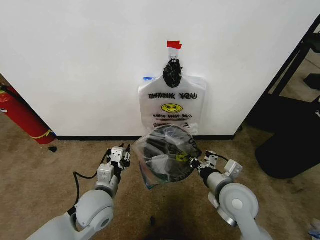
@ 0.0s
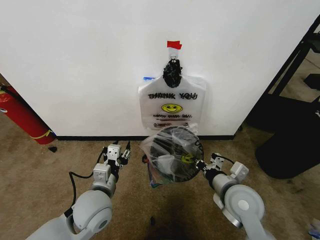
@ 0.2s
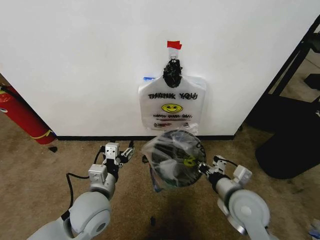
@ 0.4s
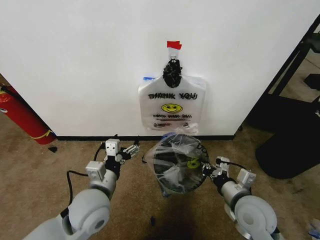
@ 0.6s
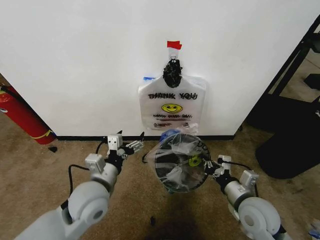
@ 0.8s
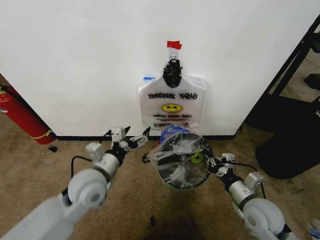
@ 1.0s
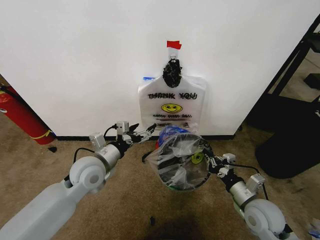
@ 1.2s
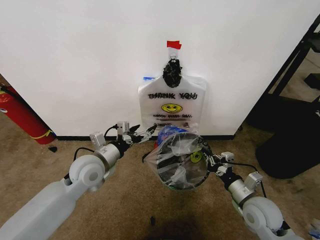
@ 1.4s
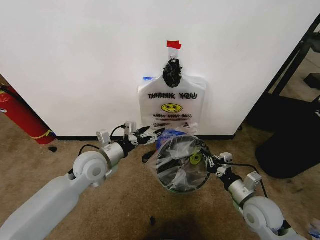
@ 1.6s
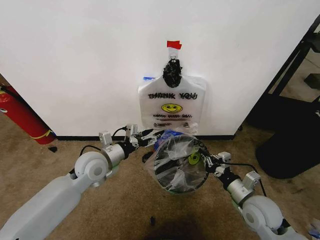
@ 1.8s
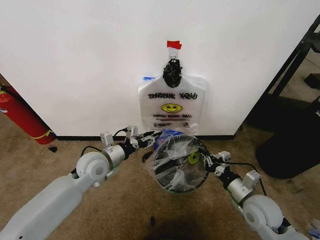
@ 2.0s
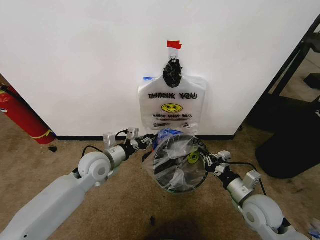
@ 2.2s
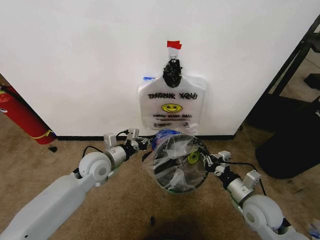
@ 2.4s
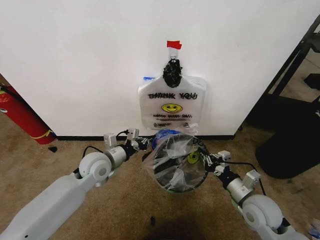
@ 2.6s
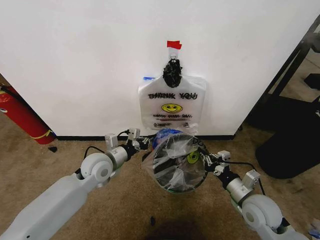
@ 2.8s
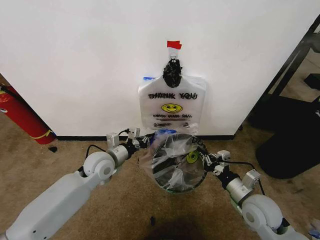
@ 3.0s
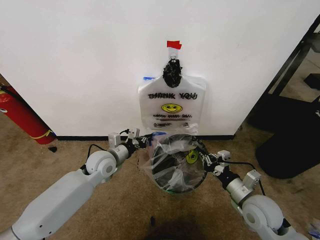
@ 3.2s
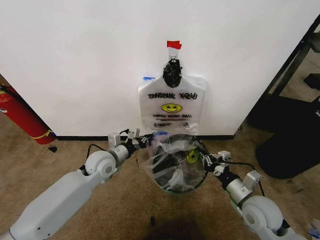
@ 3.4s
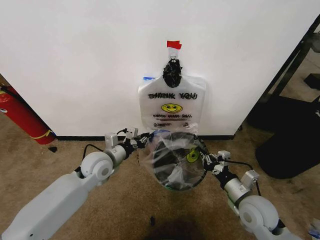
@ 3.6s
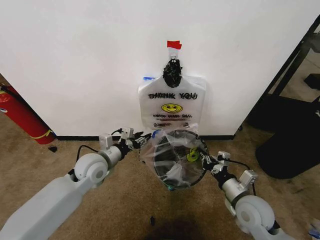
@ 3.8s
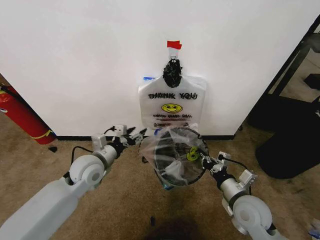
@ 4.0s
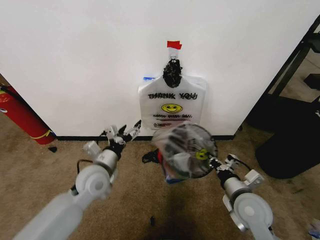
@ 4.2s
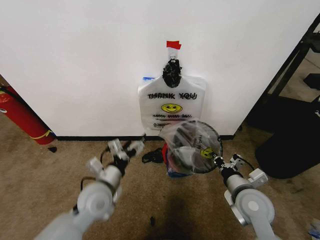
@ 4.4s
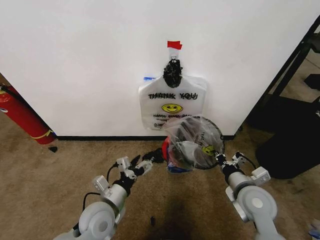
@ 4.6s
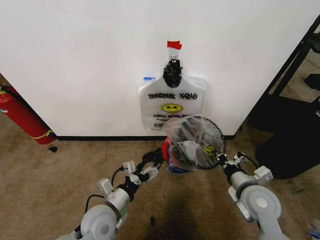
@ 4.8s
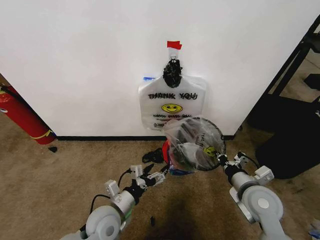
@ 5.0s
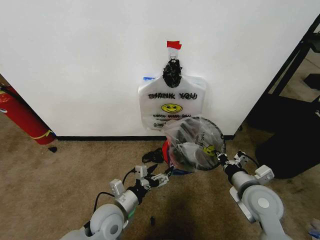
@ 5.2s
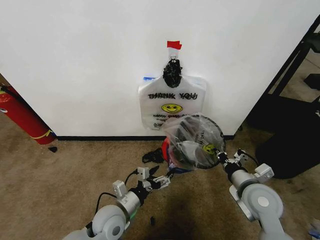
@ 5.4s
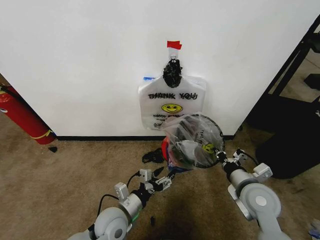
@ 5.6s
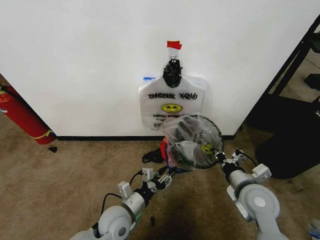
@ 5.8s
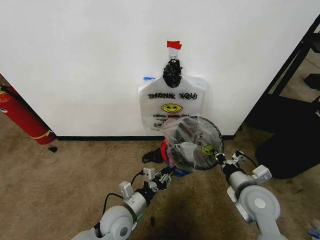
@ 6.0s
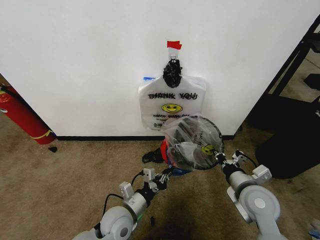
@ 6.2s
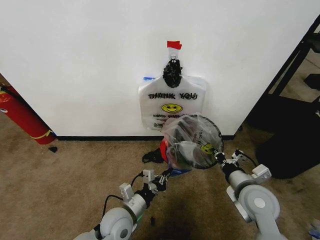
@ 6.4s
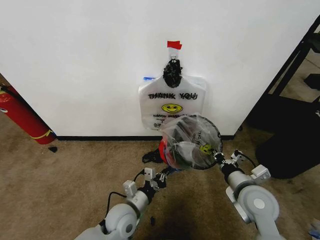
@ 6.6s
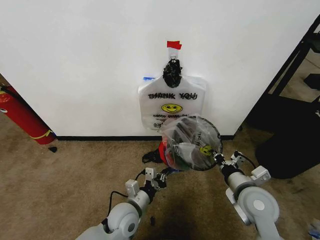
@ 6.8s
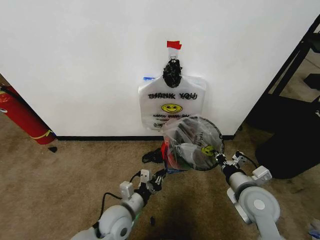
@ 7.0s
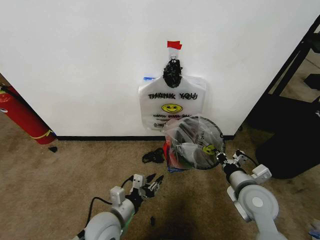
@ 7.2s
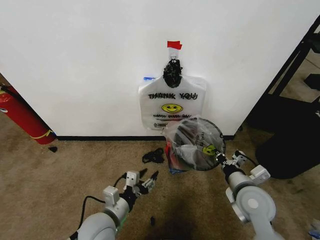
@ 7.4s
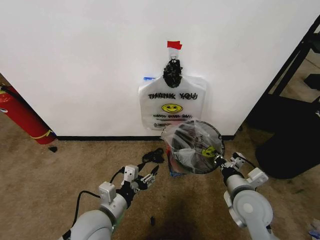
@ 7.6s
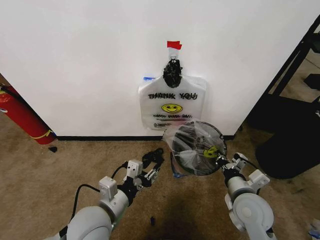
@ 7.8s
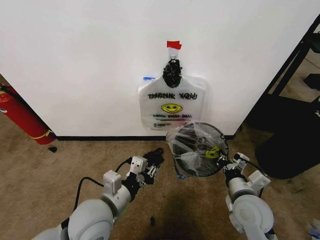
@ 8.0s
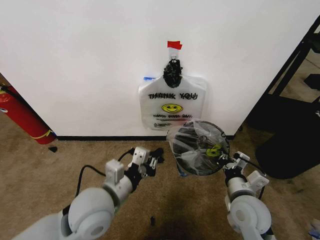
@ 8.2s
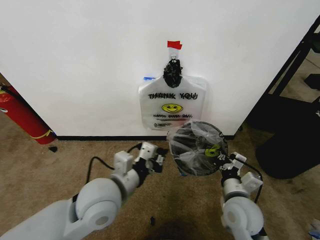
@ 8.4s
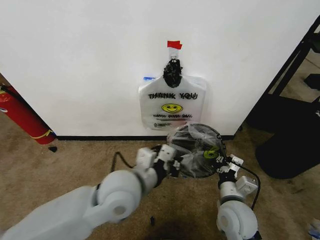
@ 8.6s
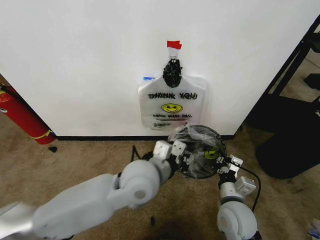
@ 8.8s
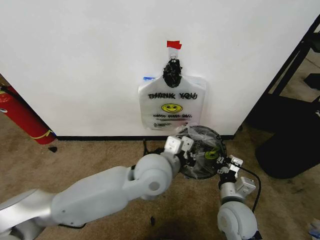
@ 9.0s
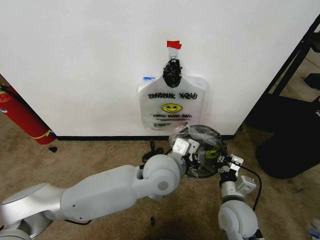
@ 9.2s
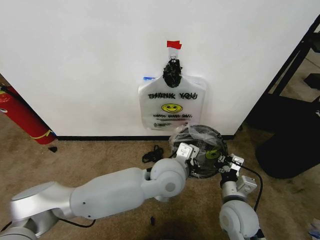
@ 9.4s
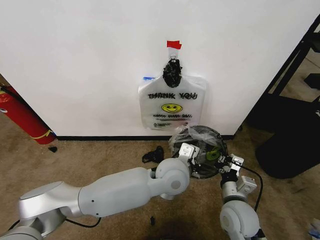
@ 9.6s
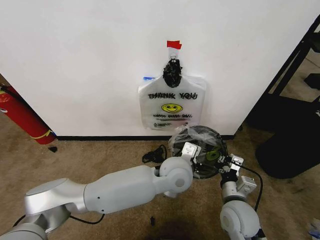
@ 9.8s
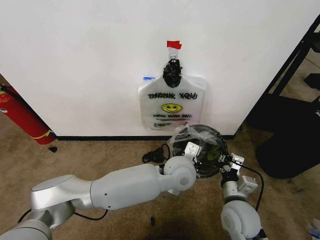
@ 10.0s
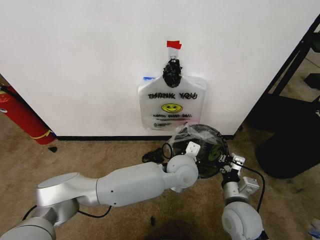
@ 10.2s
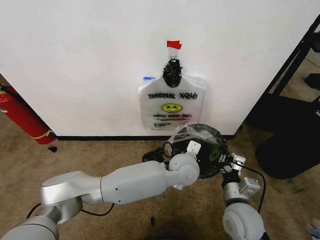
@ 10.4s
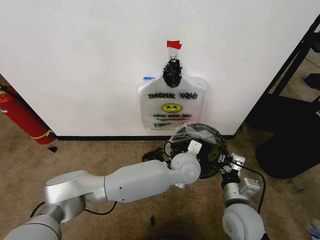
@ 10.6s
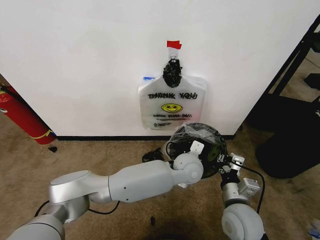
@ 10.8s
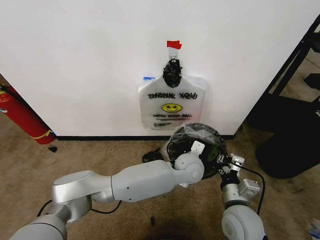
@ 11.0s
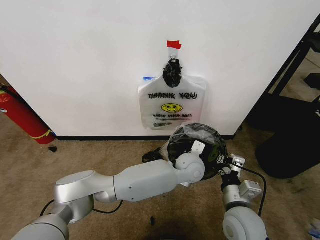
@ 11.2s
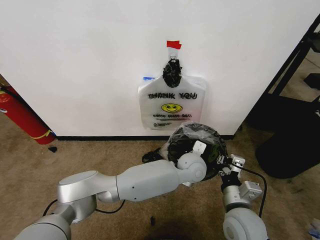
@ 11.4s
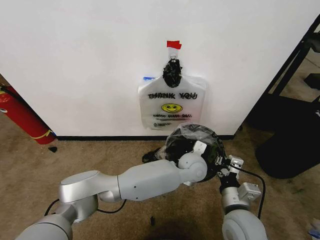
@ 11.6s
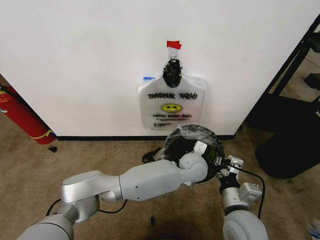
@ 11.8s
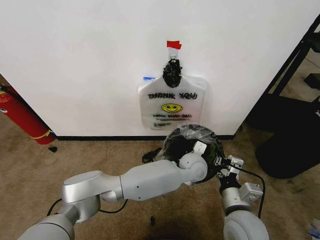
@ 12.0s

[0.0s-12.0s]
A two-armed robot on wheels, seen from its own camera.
Task of the whole recording: Pick up the garbage bag from the wall and place it over the trash bin.
0.0s to 1.6s: The left gripper moves forward, approximately 10 cm, and opens up. The right gripper heads to the right and downward, covering some 10 cm.
1.6s to 3.0s: The left gripper closes its fingers.
3.0s to 4.4s: The left gripper heads backward, covering roughly 10 cm, and opens its fingers.
4.4s to 6.0s: The left gripper heads downward and to the right, covering about 10 cm, and closes up.
6.0s to 7.6s: The left gripper travels upward by roughly 5 cm.
7.6s to 9.0s: The left gripper moves to the right, upward and forward, roughly 20 cm, and closes up; the right gripper changes place by roughly 5 cm.
9.0s to 10.4s: The left gripper heads to the right, downward and forward, covering roughly 15 cm.
10.4s to 12.0s: The left gripper moves roughly 5 cm.

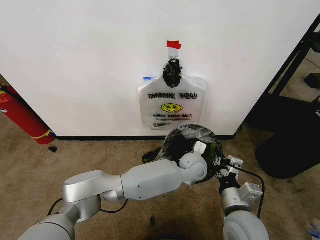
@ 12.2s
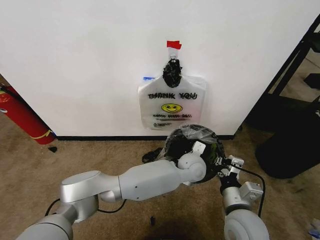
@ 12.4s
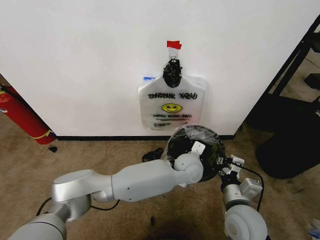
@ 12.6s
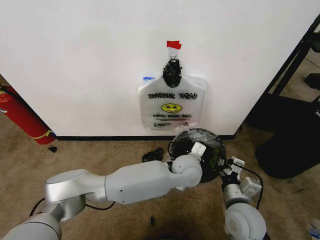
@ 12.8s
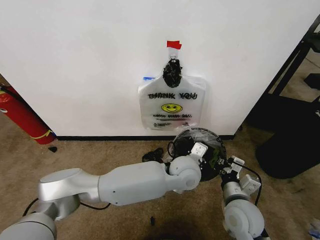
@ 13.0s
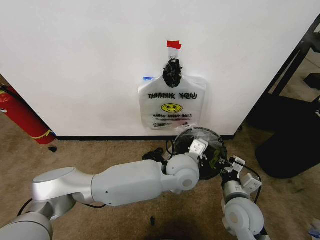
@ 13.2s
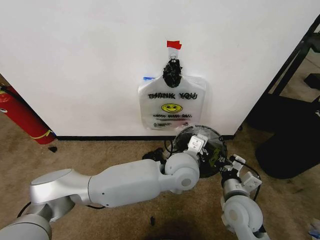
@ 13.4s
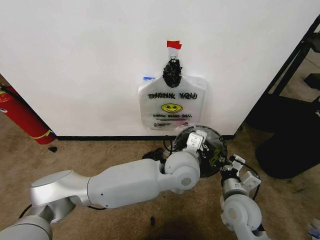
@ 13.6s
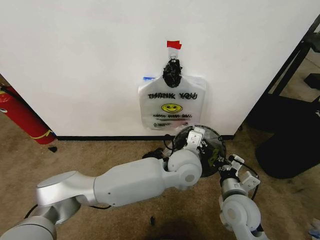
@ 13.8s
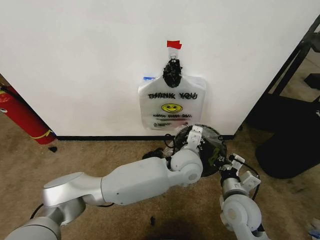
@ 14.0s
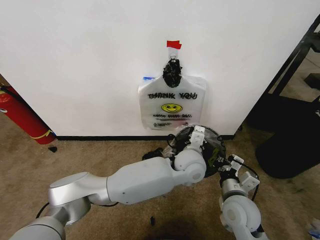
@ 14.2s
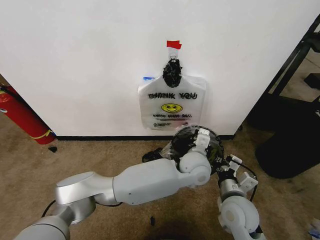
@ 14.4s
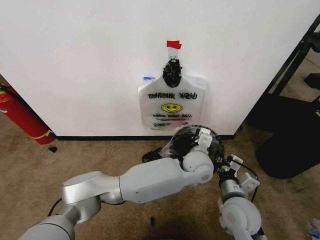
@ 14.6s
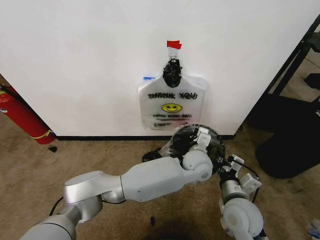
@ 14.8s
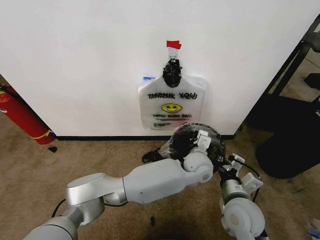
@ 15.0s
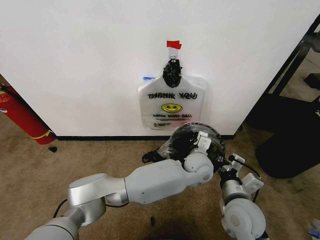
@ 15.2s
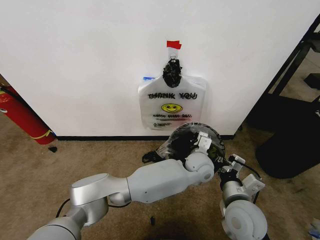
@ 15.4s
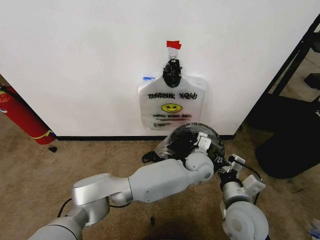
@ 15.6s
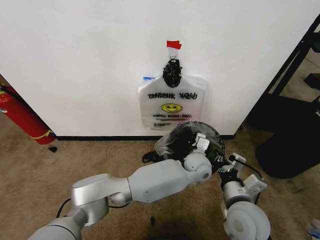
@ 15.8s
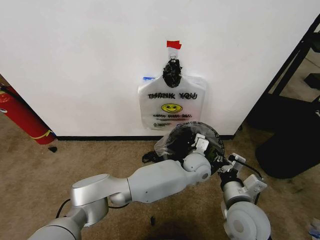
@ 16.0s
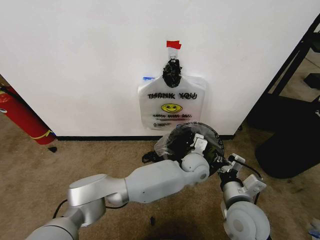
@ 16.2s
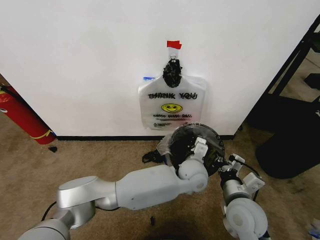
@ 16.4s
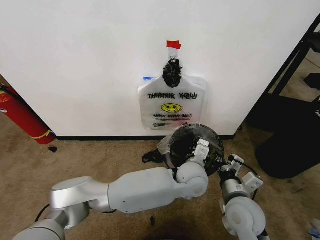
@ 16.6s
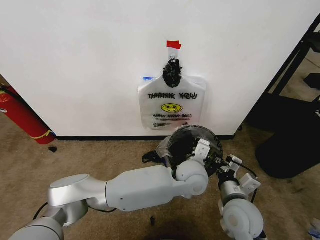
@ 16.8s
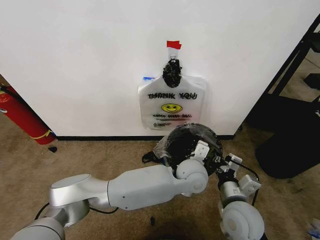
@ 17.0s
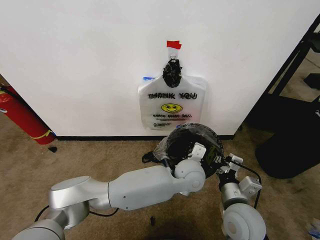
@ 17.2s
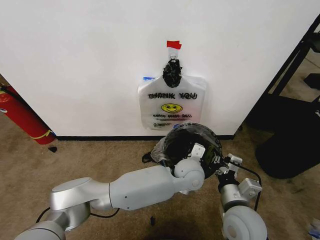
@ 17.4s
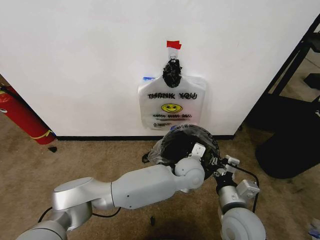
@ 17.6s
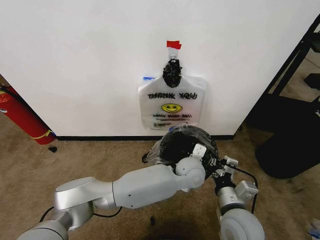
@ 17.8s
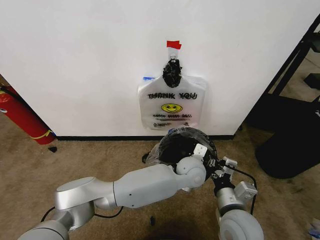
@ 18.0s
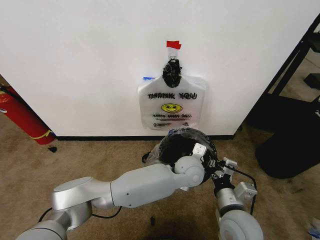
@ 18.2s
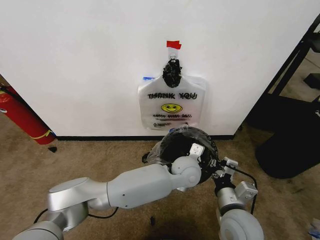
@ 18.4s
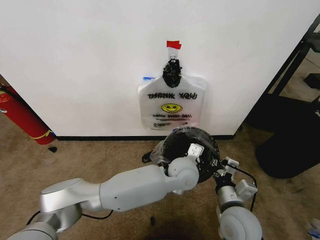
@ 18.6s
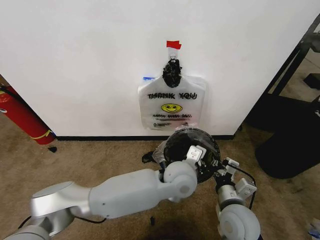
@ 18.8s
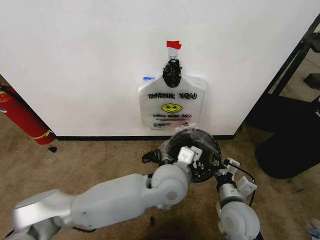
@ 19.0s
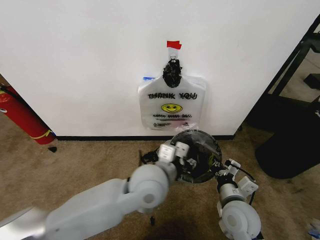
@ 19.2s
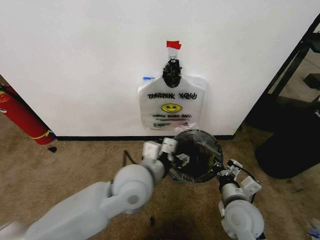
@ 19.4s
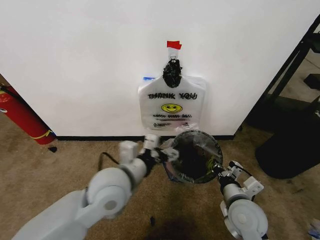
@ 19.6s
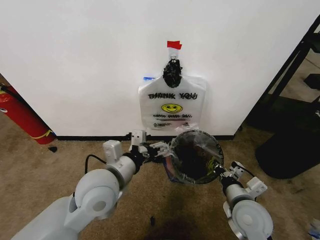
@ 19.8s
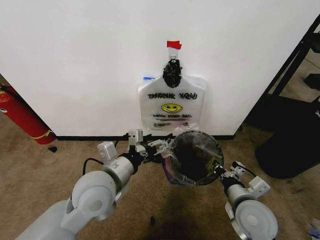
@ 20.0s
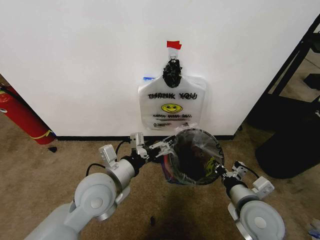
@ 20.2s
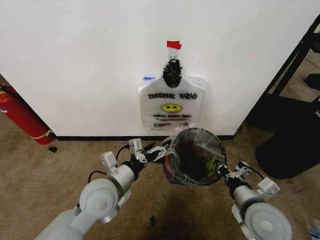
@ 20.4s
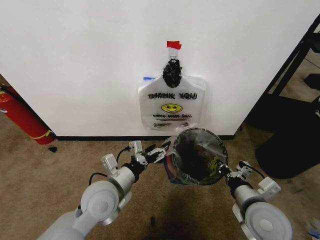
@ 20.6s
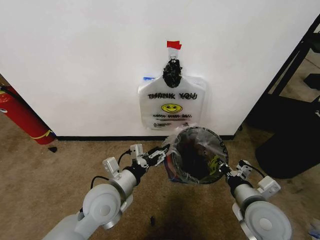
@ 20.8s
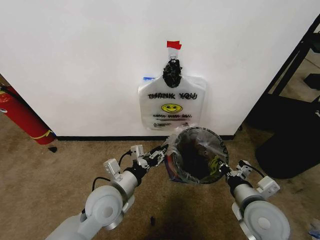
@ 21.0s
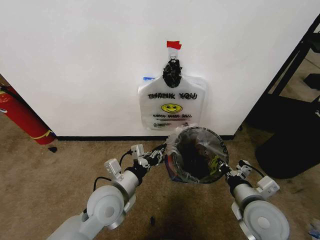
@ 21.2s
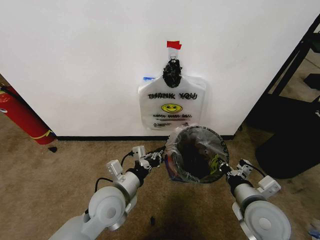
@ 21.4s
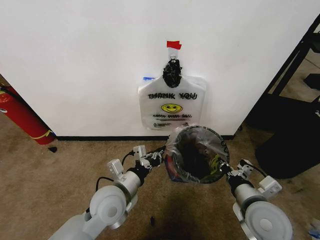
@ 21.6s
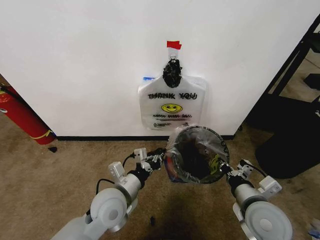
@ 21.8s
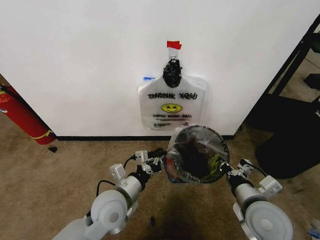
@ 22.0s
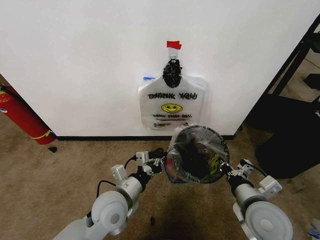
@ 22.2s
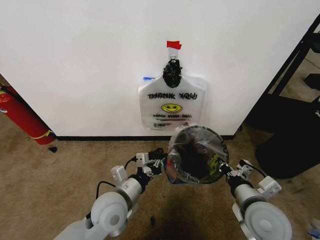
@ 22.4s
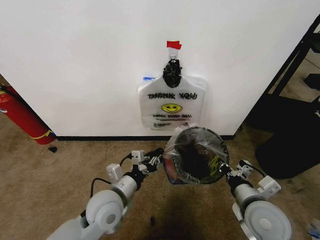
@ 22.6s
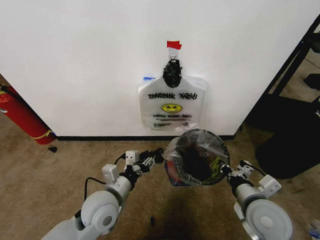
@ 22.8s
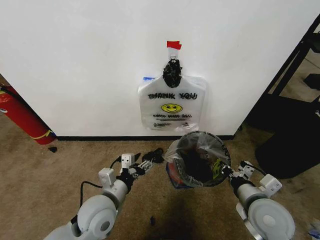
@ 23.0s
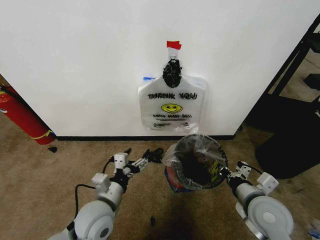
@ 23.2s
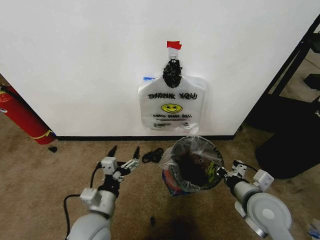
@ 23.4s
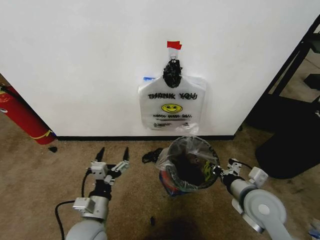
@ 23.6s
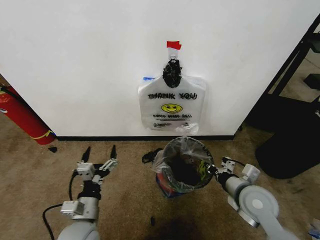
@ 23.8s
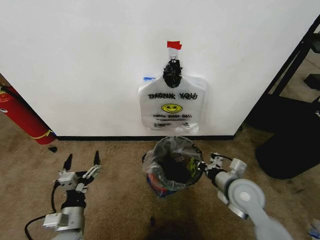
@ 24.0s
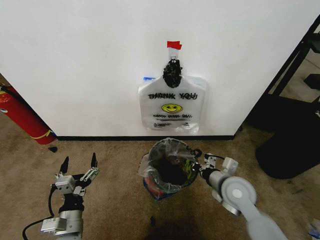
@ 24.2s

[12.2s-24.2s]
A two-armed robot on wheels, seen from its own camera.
Task of the whole recording: Pick up the garbage bag from the wall and place it over the trash bin.
12.2s to 13.8s: The left gripper heads upward, backward and to the left, covering some 10 cm; the right gripper is displaced forward by approximately 5 cm.
13.8s to 15.2s: The left gripper heads downward and to the right, covering roughly 10 cm.
15.2s to 16.6s: The left gripper changes place by approximately 5 cm.
16.6s to 18.2s: The grippers move only a little.
18.2s to 19.8s: The right gripper moves approximately 5 cm. The left gripper shifts approximately 30 cm to the left, backward and upward, and opens its fingers.
19.8s to 21.2s: The left gripper heads downward, covering roughly 10 cm, and closes.
21.2s to 22.6s: The grippers move only a little.
22.6s to 24.2s: The left gripper moves to the left, backward and downward, about 15 cm, and opens up. The right gripper heads forward, covering roughly 10 cm.
